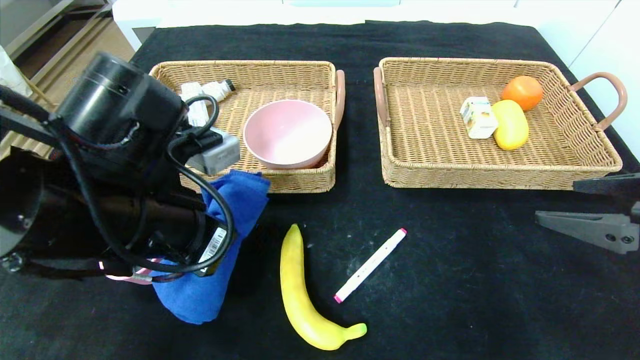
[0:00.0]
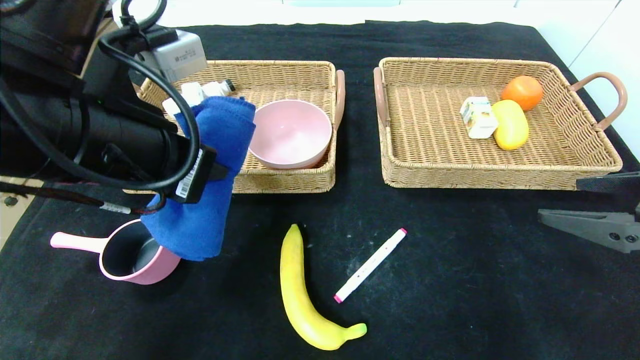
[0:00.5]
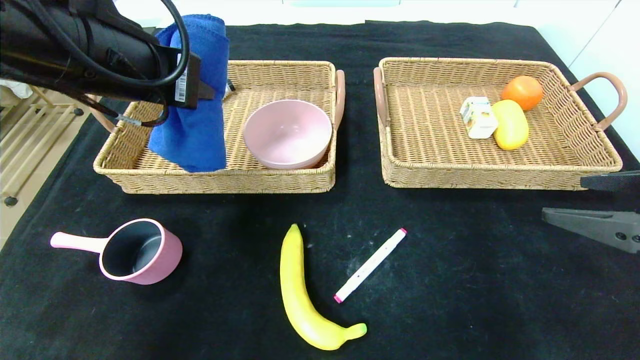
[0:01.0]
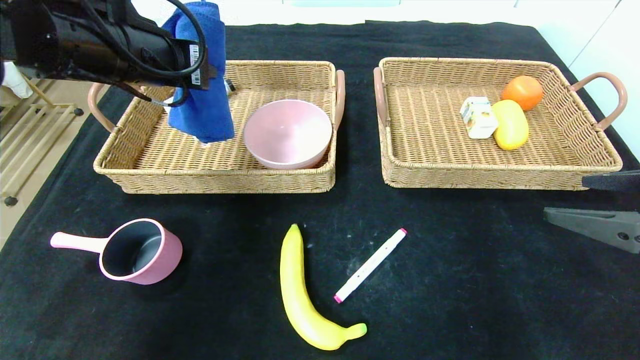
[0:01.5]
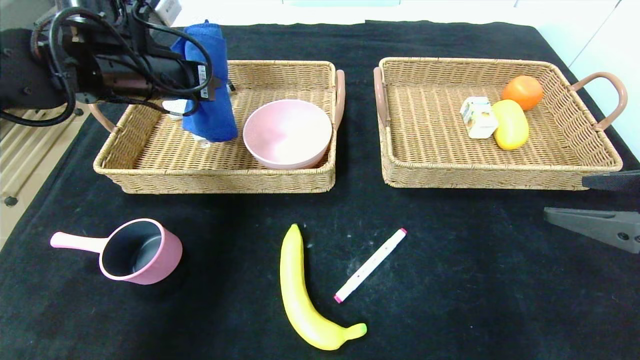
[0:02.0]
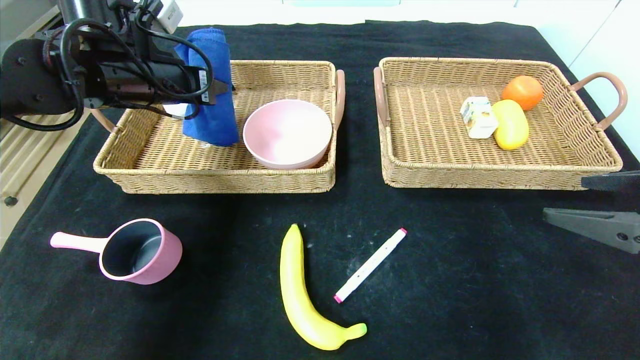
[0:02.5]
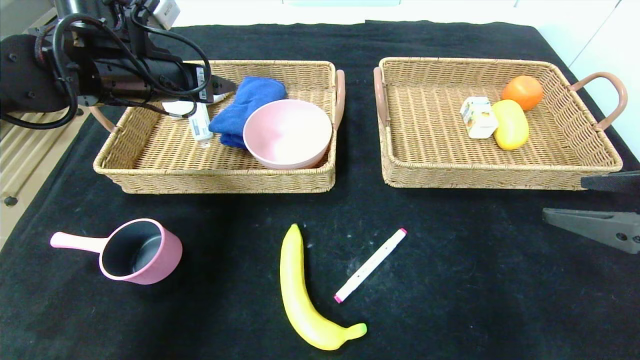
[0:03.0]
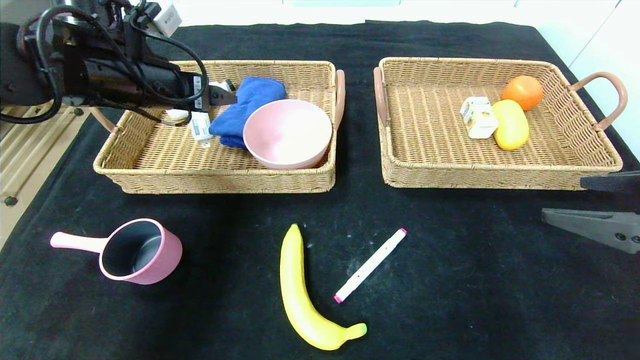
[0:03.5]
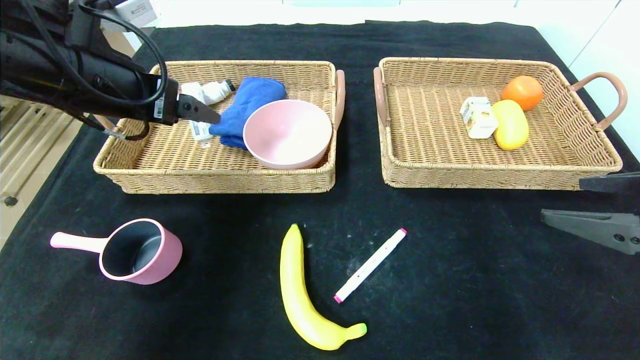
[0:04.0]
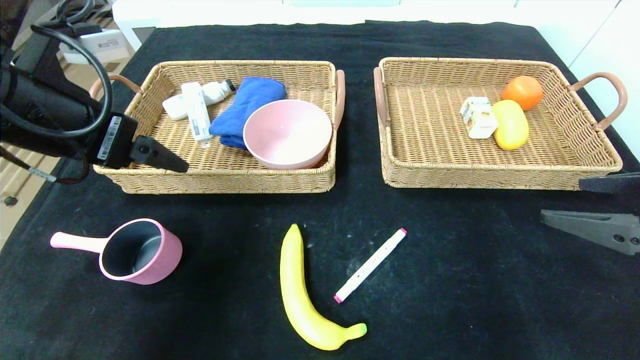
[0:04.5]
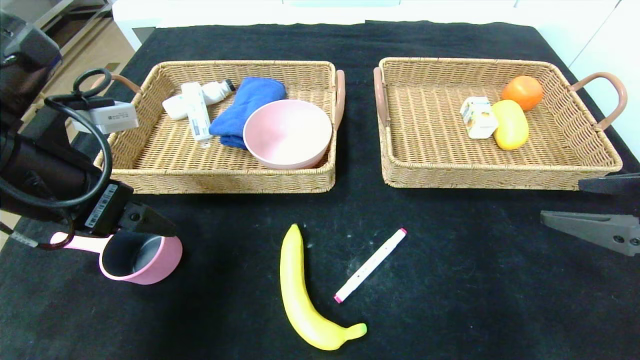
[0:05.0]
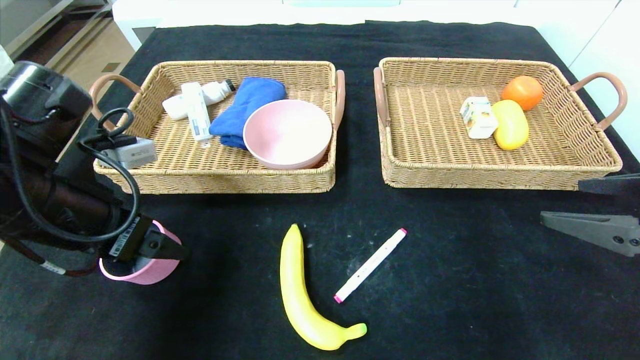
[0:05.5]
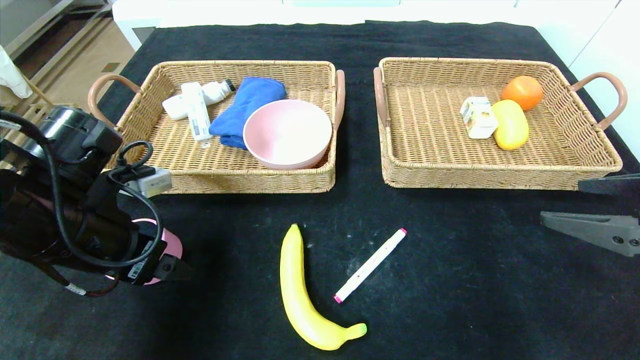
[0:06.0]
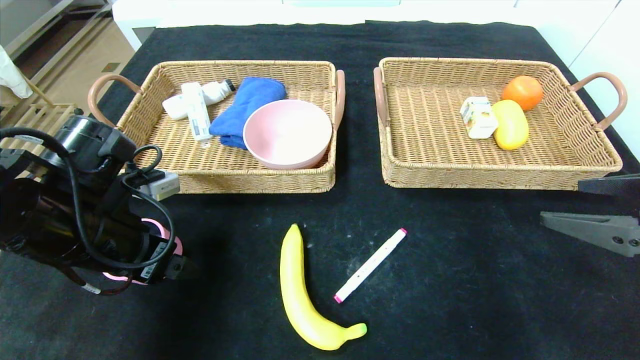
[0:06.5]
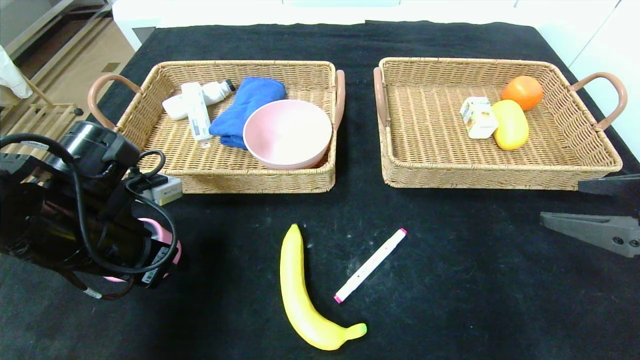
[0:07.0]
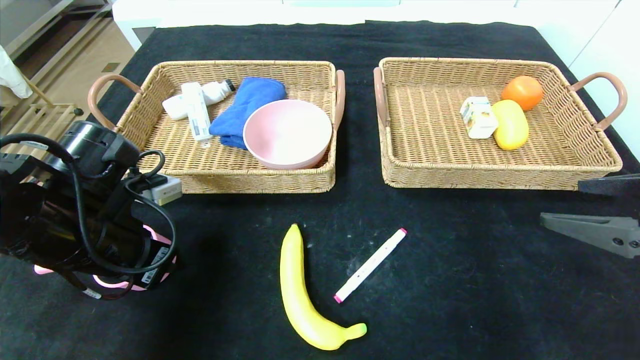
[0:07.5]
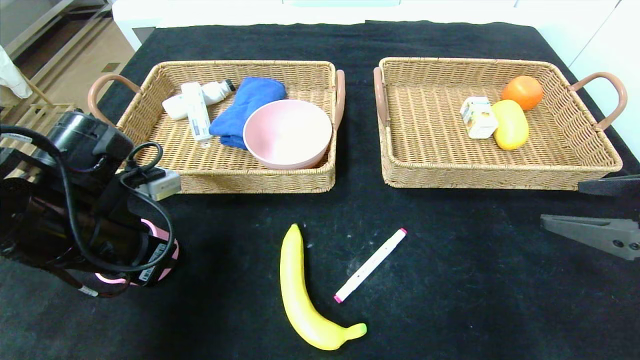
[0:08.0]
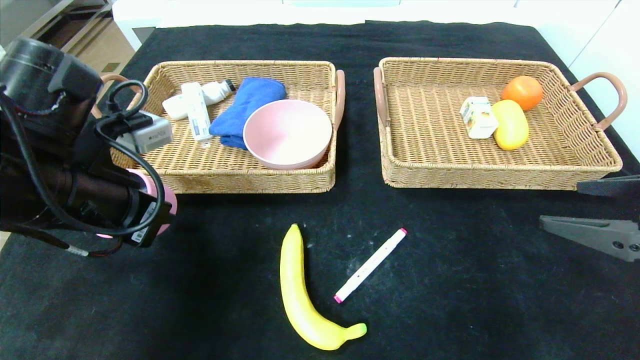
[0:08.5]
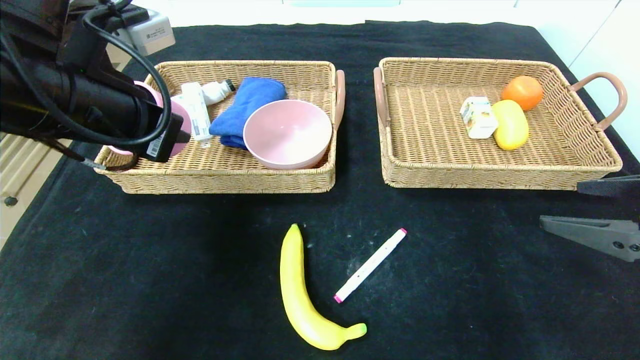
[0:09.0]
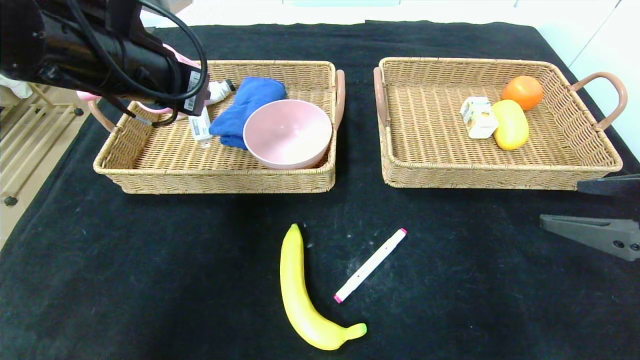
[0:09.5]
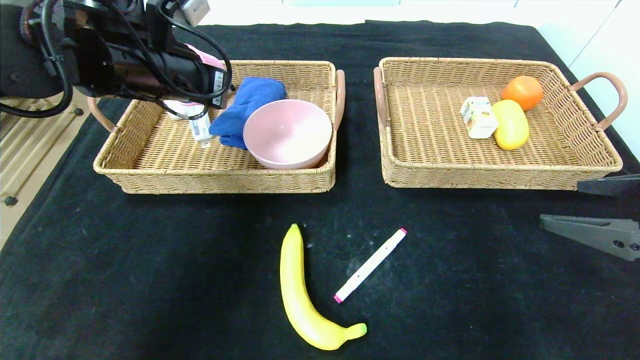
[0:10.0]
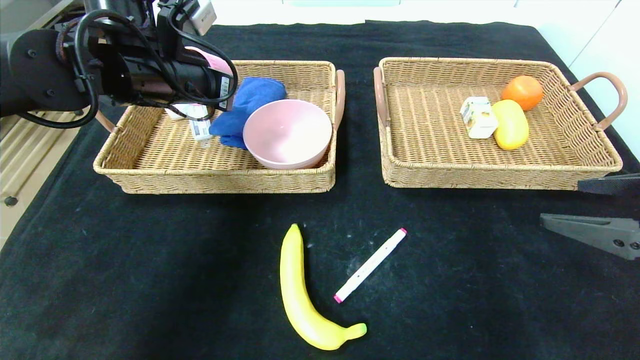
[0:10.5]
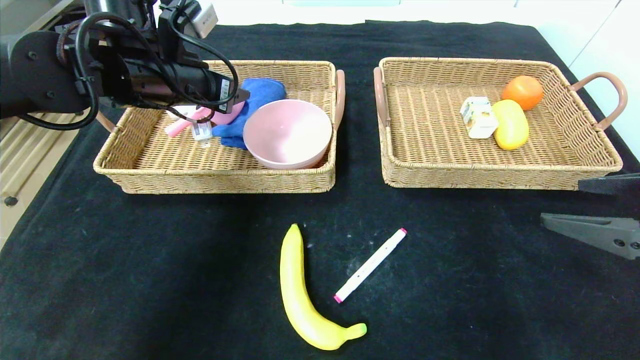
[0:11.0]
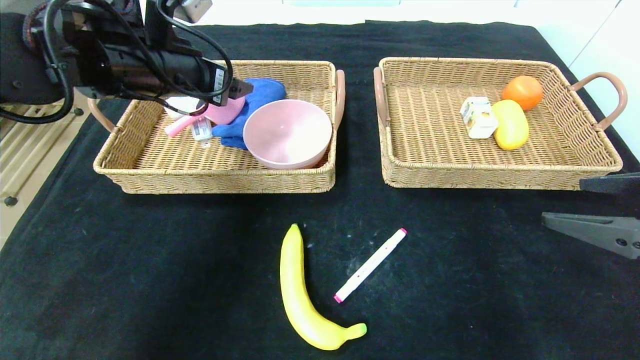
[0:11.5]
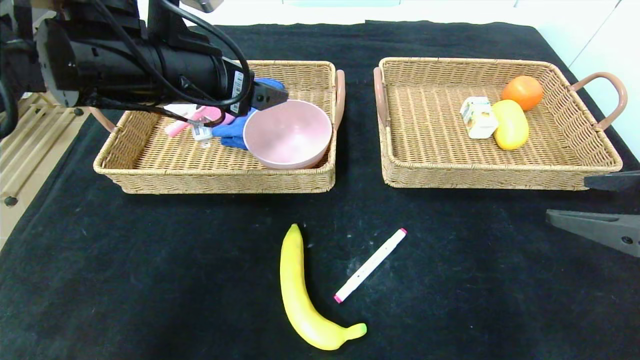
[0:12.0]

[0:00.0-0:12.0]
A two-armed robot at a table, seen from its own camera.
Step, 0:00.0 to 0:03.0: Grasp the blue towel and put it in the left basket.
Step, 0:03.5 to 0:11.0: Grasp the pink pot and put it in the left basket.
0:00.0 to 0:02.0: The left gripper heads forward, to the left and upward, covering approximately 20 cm.
0:02.0 to 0:04.0: The left gripper travels backward by roughly 10 cm, and opens up.
0:04.0 to 0:06.0: The left gripper travels downward and backward by some 15 cm.
0:06.0 to 0:08.0: The left gripper closes.
0:08.0 to 0:10.0: The left gripper heads upward and forward, covering roughly 15 cm.
0:10.0 to 0:12.0: The left gripper moves backward, roughly 5 cm, and opens up.

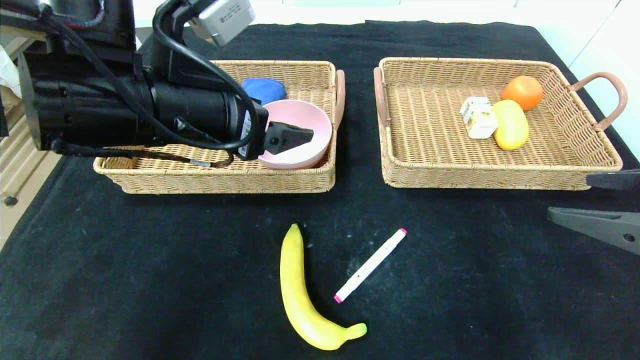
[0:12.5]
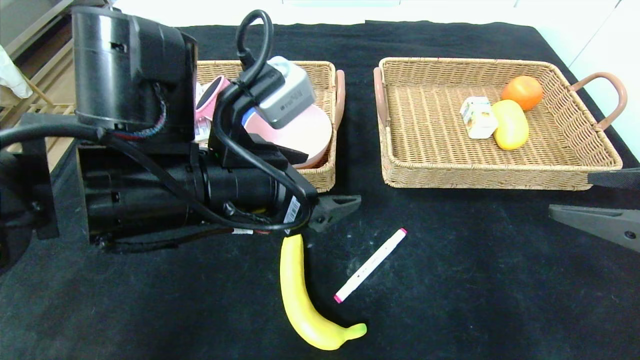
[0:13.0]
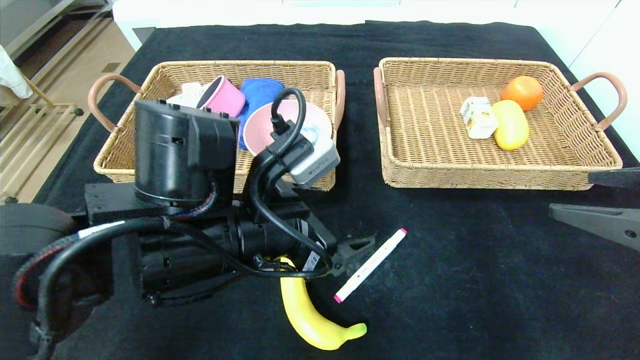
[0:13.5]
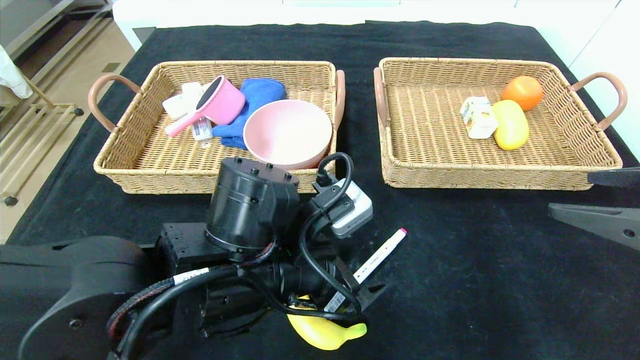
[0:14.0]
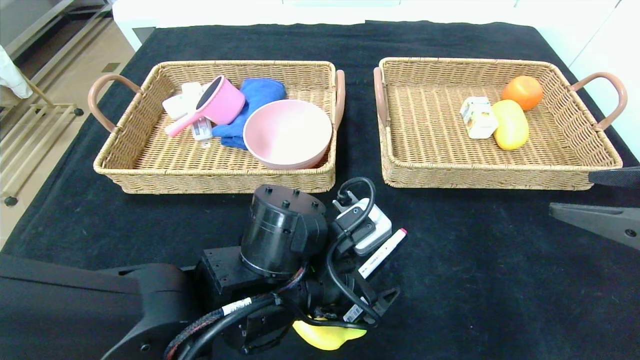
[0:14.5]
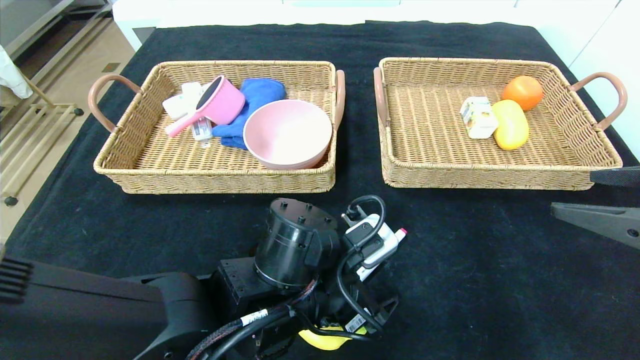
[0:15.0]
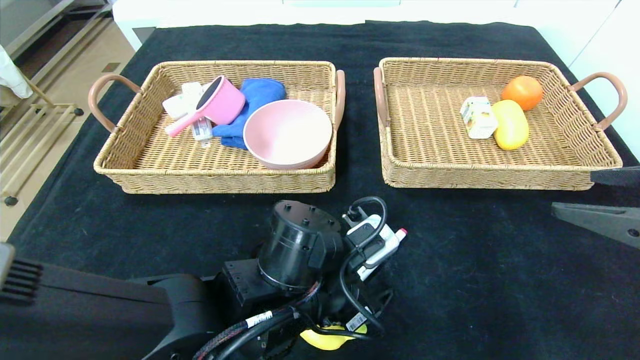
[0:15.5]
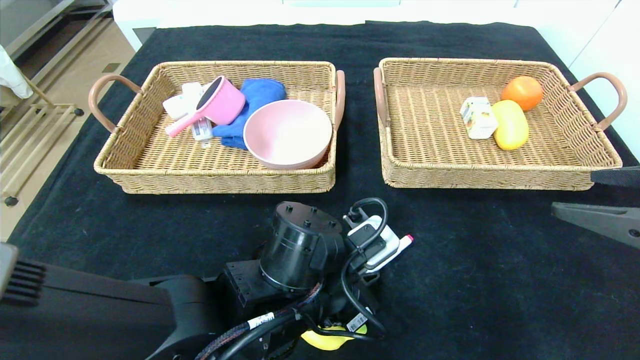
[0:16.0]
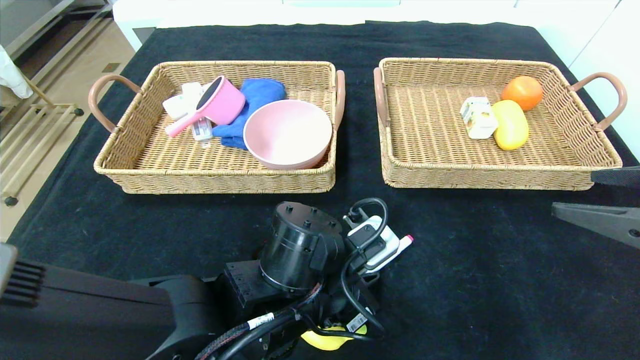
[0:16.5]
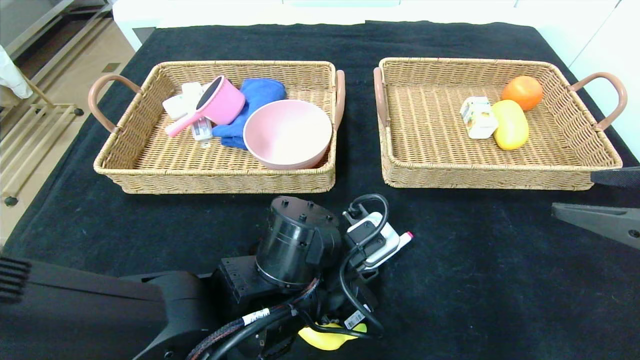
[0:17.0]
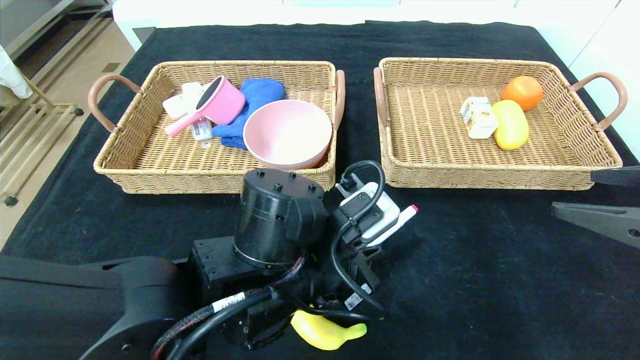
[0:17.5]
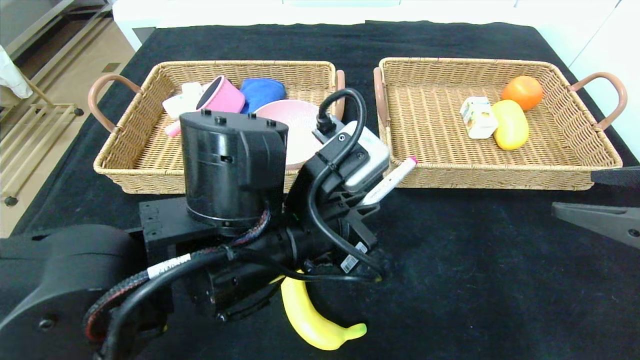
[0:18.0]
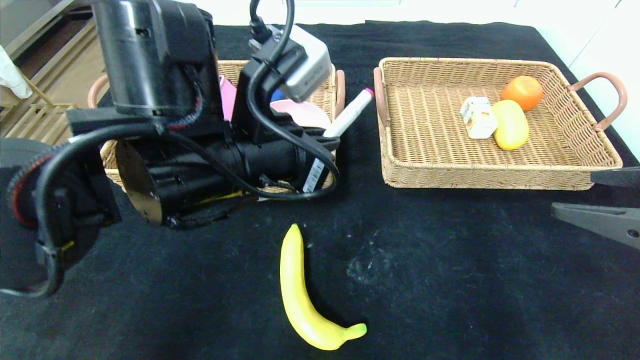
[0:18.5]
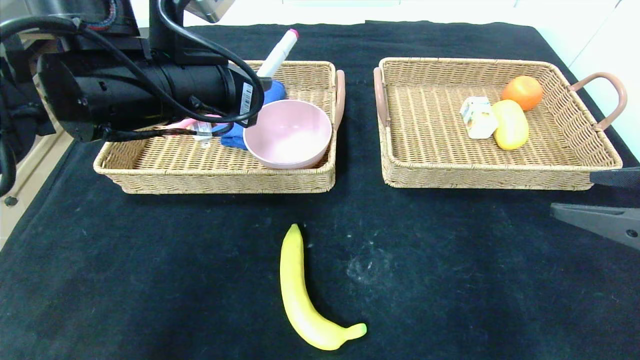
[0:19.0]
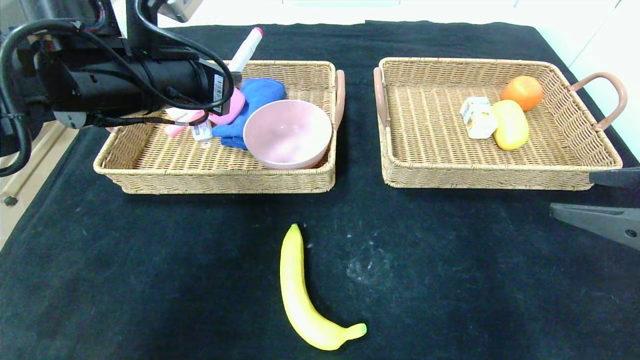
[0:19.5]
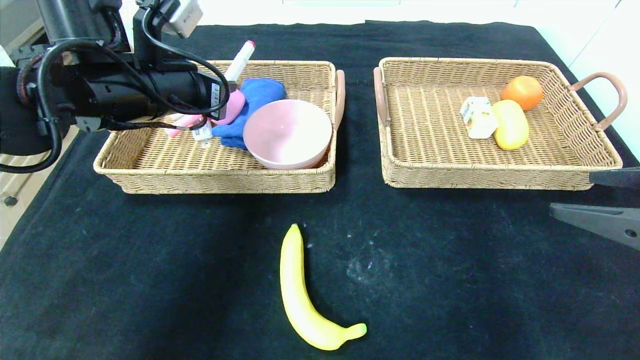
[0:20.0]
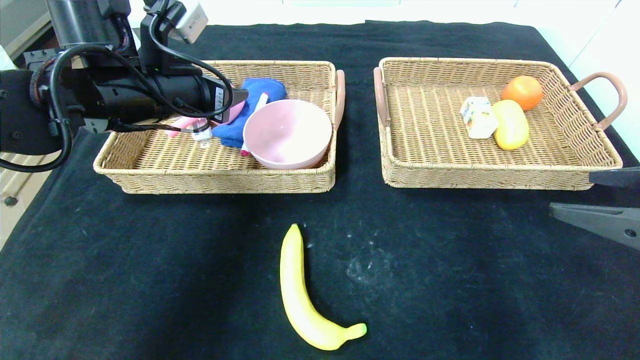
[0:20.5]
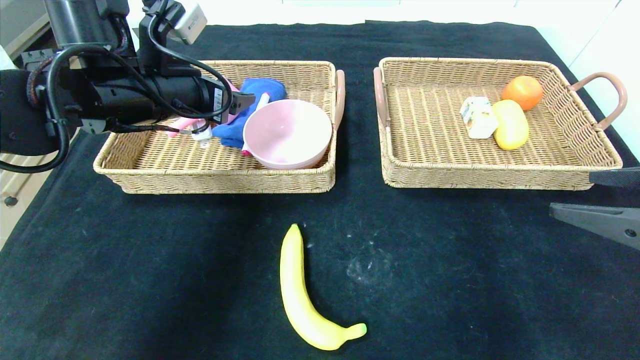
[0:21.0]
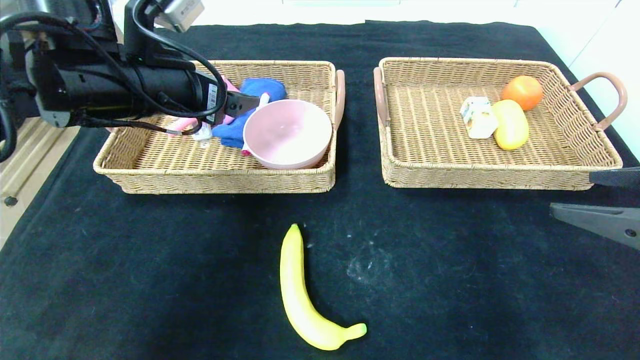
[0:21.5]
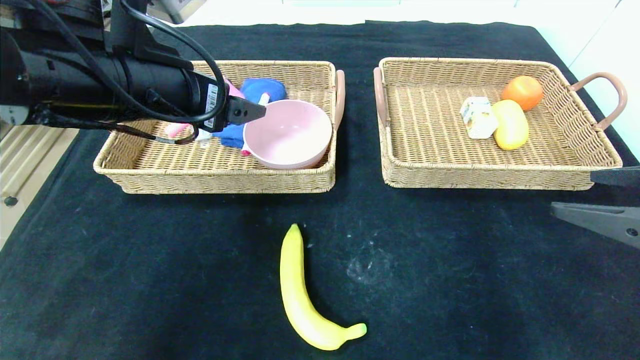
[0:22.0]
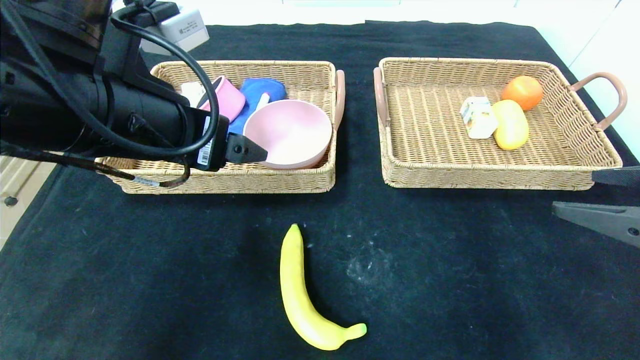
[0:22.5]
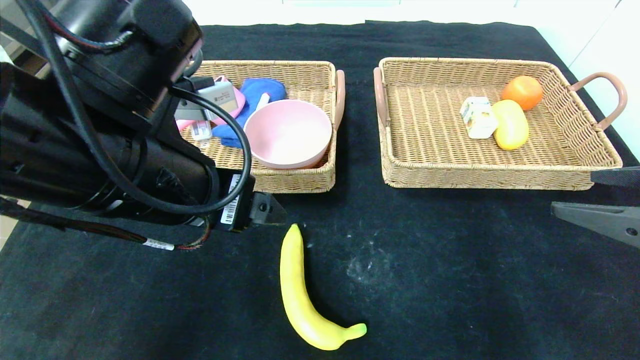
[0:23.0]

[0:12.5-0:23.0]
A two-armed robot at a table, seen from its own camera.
Step, 0:12.5 to 0:20.5: Grasp the red marker and put it in the left basket.
0:12.5 to 0:14.5: The left gripper goes roughly 20 cm downward and to the right.
0:14.5 to 0:16.5: The left gripper closes its fingers.
0:16.5 to 0:19.0: The left gripper moves upward and to the left, some 20 cm.
0:19.0 to 0:21.0: The left gripper heads forward and to the left, covering some 10 cm, and opens its fingers.
0:21.0 to 0:23.0: The left gripper shifts approximately 15 cm backward and to the right.
